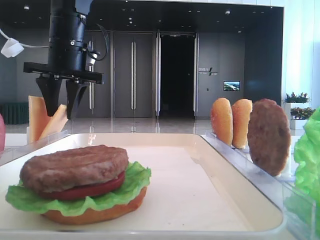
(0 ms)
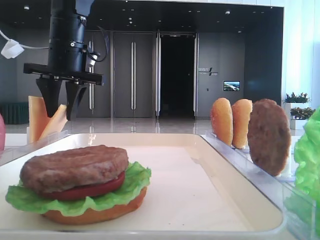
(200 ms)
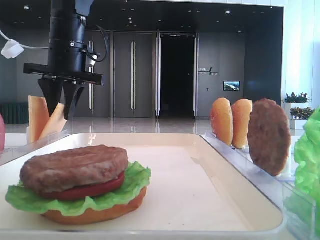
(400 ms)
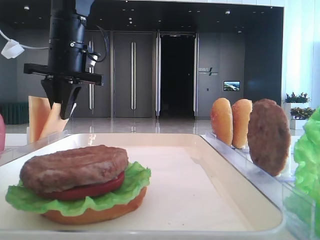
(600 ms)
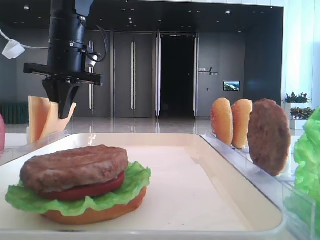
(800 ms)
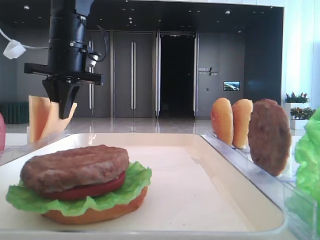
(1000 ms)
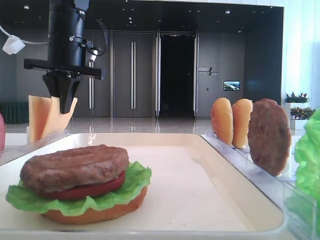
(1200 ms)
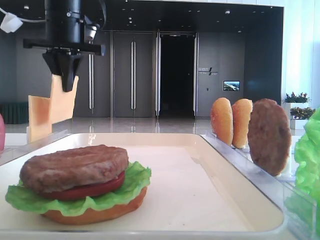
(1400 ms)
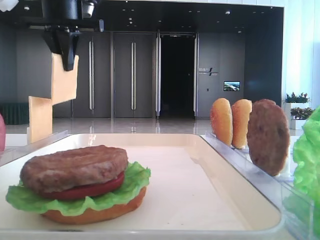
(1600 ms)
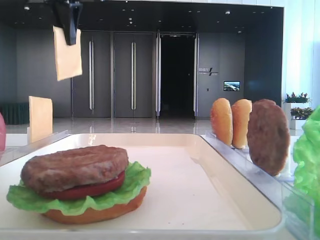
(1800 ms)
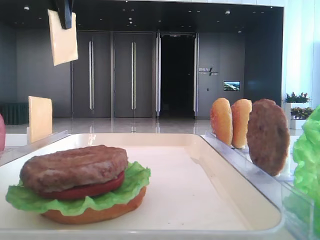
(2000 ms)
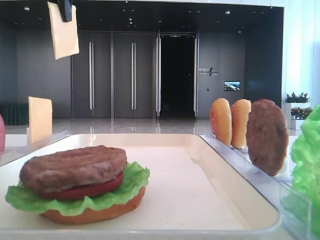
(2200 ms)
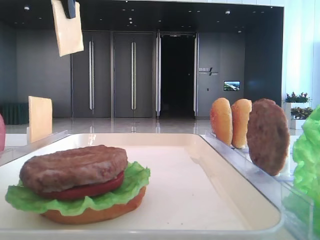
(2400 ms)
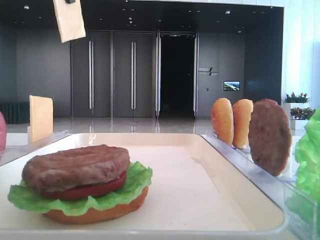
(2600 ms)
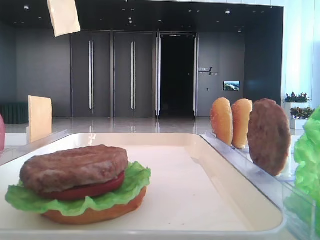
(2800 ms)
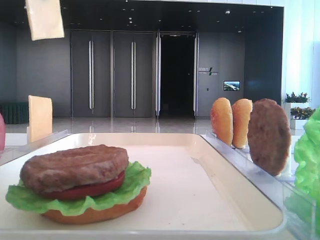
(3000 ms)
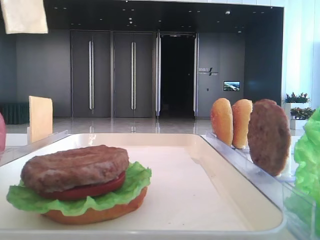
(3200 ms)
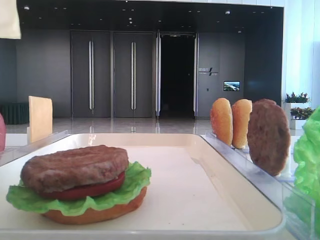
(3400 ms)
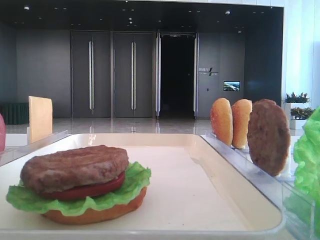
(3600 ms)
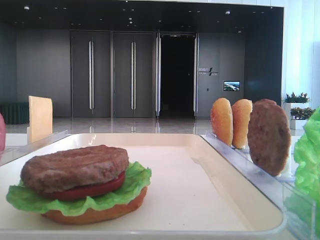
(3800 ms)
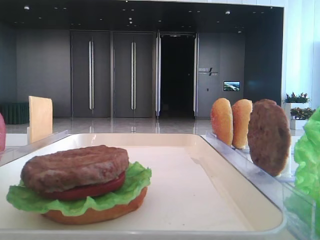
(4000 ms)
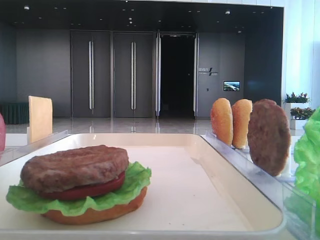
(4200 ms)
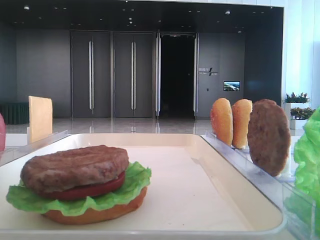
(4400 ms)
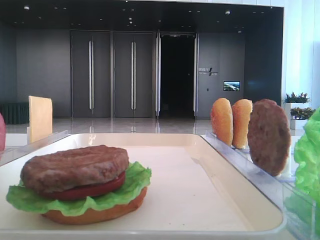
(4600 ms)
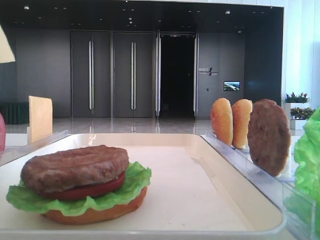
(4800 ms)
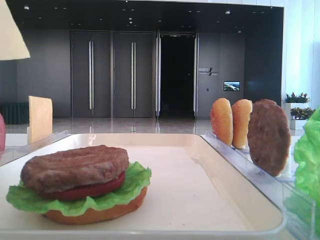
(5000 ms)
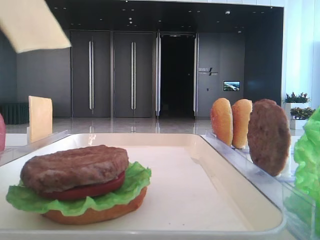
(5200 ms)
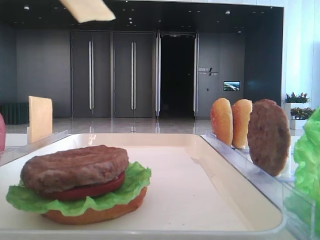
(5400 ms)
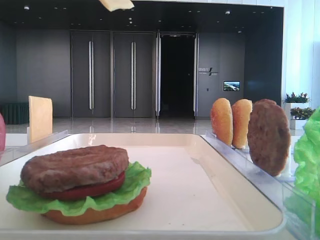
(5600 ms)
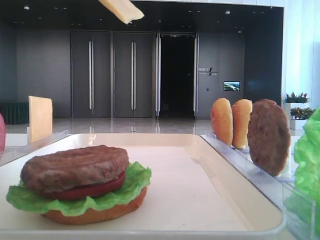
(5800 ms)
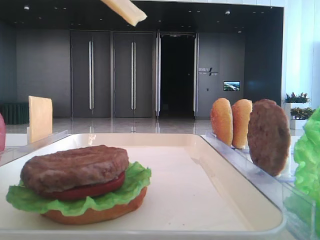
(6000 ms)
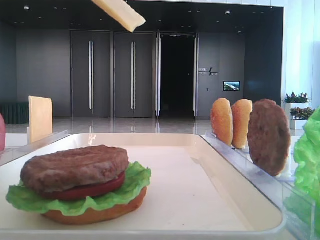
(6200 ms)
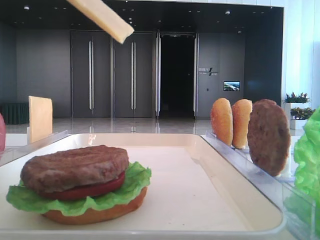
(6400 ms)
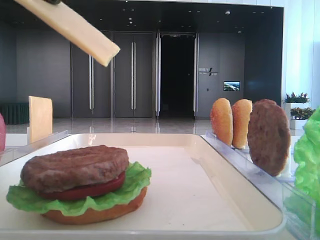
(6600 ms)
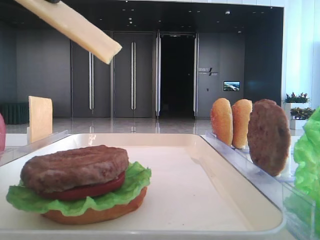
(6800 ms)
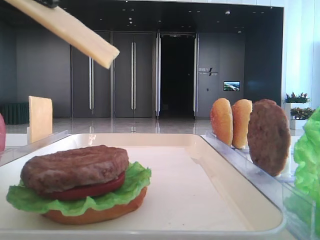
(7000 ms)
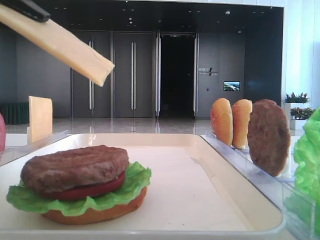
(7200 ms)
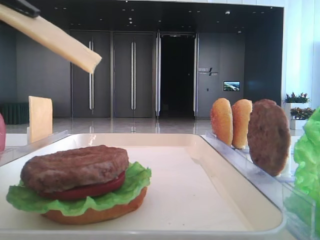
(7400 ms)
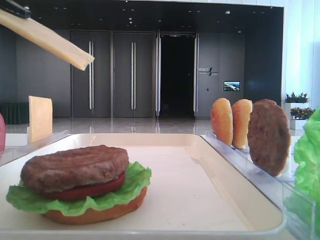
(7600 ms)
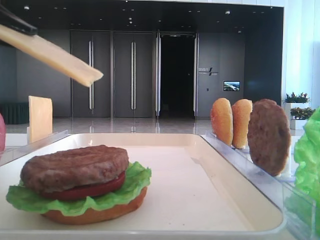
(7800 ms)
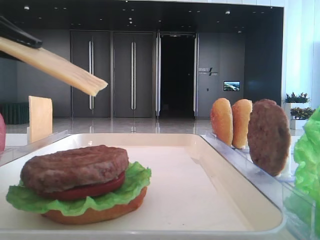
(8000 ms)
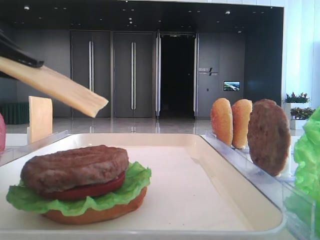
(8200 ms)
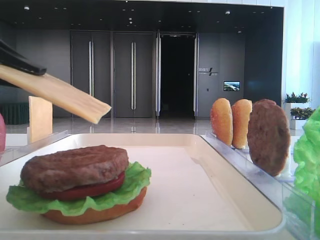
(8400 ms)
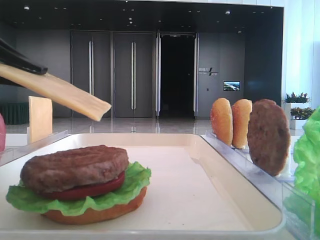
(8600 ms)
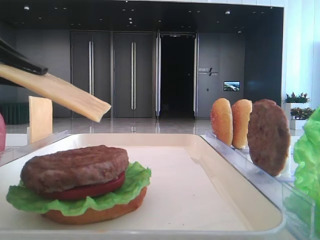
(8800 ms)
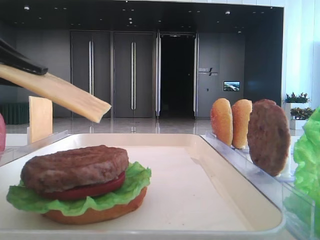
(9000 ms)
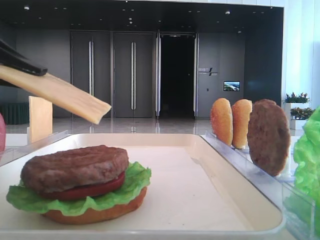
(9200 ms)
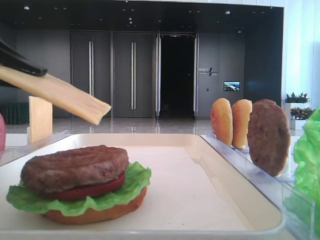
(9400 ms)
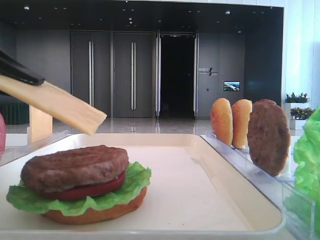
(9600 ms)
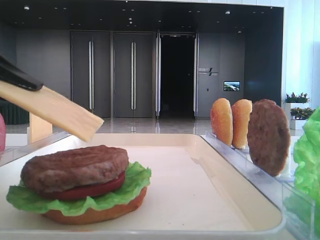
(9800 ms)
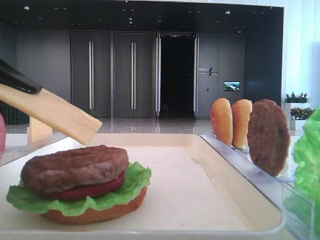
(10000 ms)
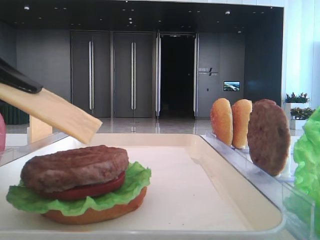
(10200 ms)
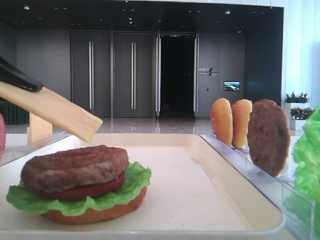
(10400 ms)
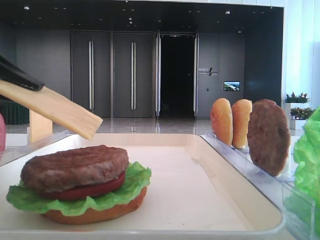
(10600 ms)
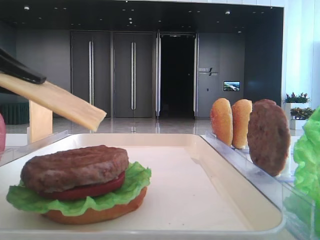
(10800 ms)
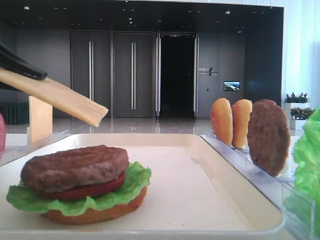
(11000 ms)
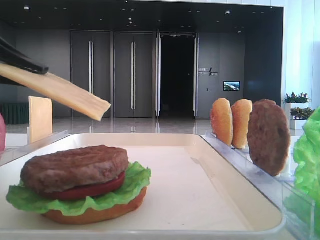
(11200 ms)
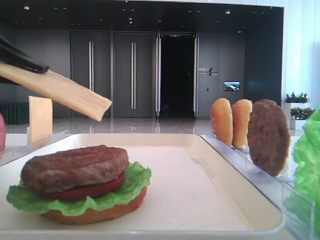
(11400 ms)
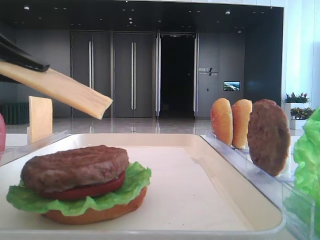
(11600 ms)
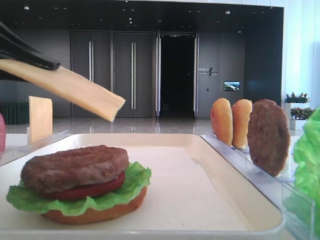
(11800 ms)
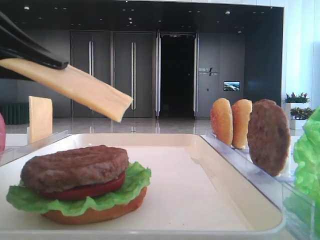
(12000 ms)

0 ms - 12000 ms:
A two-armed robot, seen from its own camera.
0 ms - 1600 ms: The left gripper goes some 10 cm upward, and closes its fingers.
1600 ms - 3000 ms: The left gripper is displaced upward and backward by approximately 15 cm.
3000 ms - 4400 ms: The left gripper heads backward and downward, covering about 20 cm.
4400 ms - 6000 ms: The left gripper shifts approximately 5 cm to the right.
6000 ms - 7600 ms: The left gripper is displaced downward and to the left by about 10 cm.
7600 ms - 9000 ms: The left gripper goes about 5 cm downward.
9000 ms - 10400 ms: Neither gripper changes place.
10400 ms - 12000 ms: The grippers move only a little.

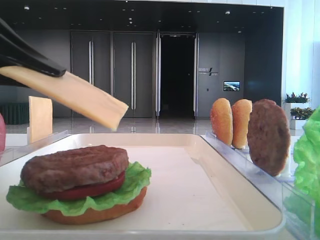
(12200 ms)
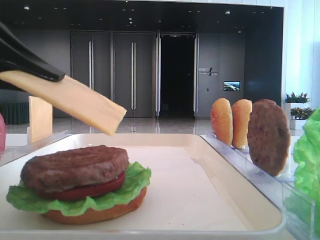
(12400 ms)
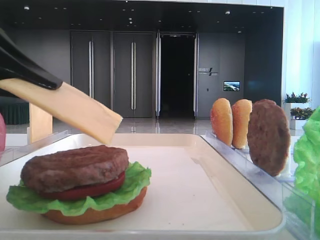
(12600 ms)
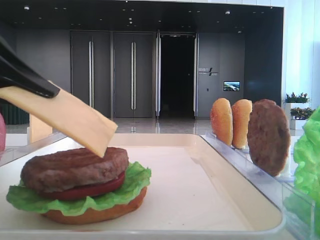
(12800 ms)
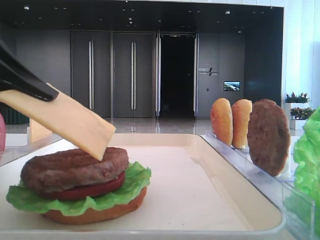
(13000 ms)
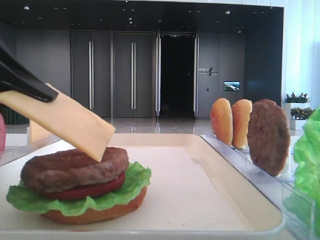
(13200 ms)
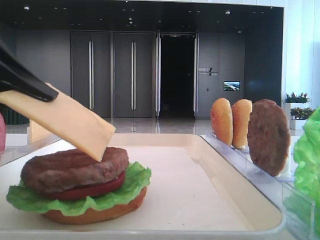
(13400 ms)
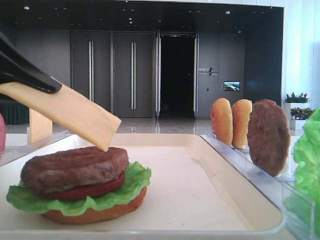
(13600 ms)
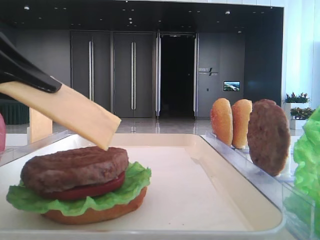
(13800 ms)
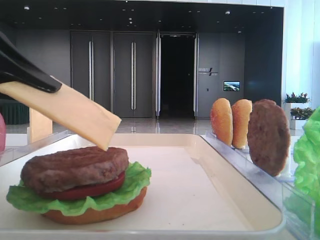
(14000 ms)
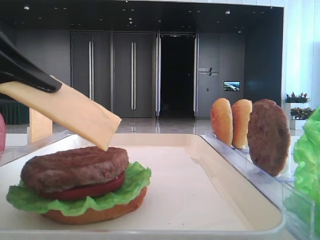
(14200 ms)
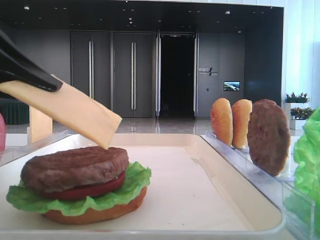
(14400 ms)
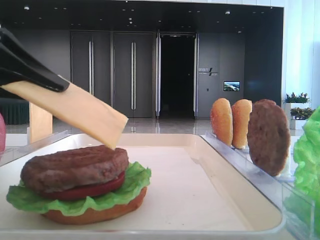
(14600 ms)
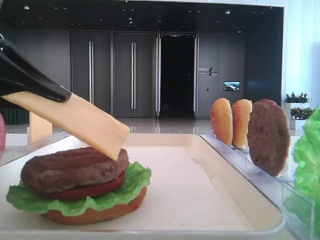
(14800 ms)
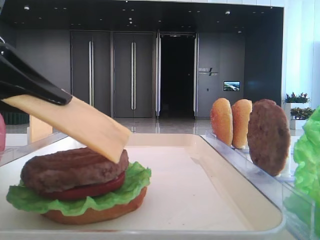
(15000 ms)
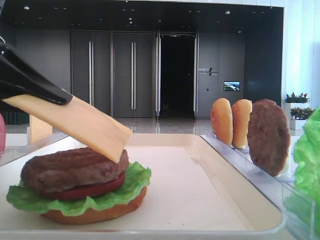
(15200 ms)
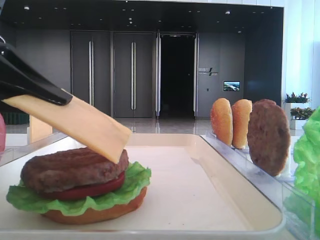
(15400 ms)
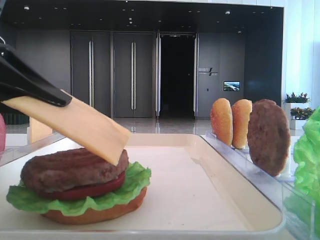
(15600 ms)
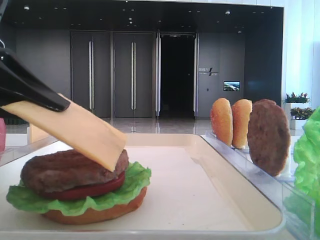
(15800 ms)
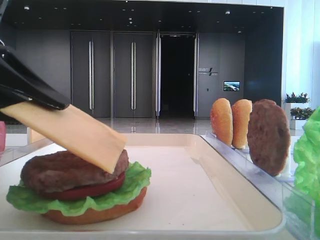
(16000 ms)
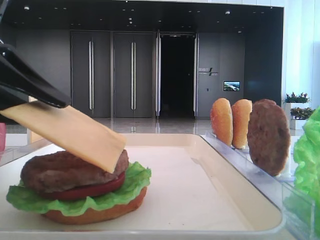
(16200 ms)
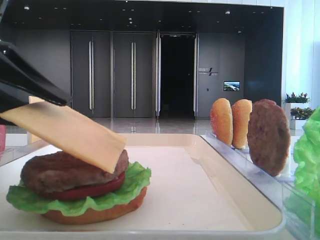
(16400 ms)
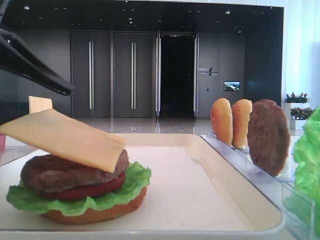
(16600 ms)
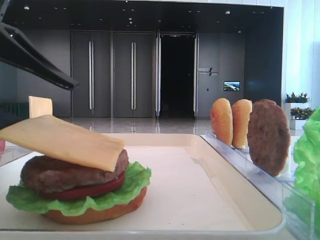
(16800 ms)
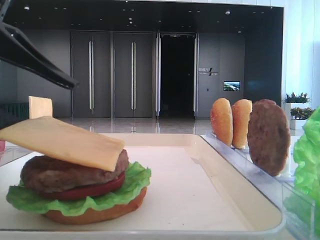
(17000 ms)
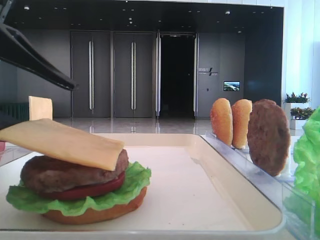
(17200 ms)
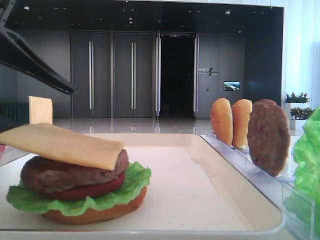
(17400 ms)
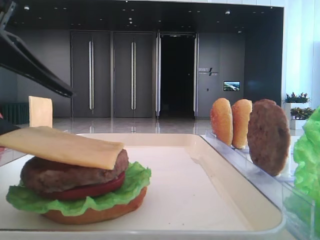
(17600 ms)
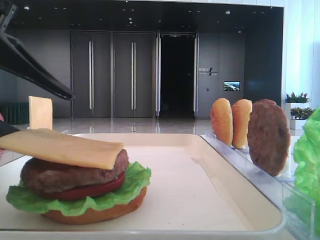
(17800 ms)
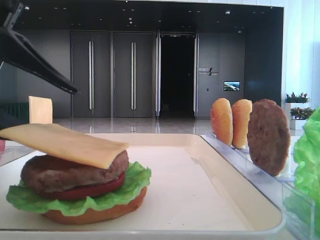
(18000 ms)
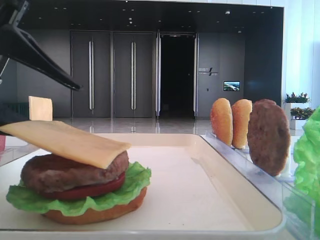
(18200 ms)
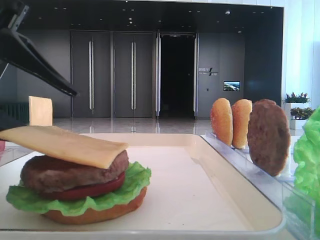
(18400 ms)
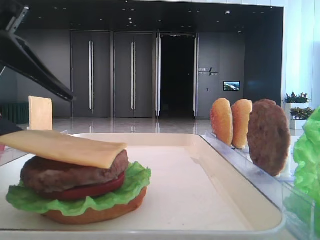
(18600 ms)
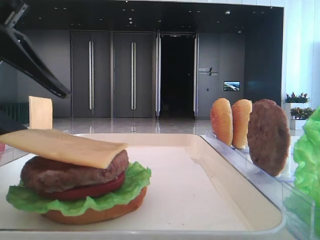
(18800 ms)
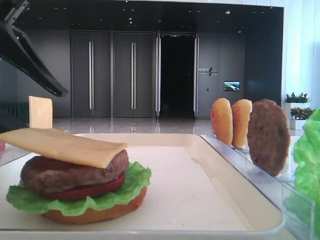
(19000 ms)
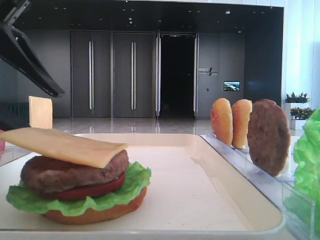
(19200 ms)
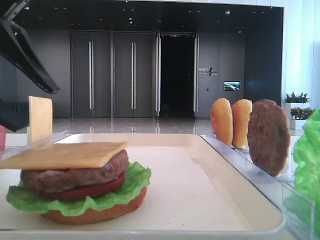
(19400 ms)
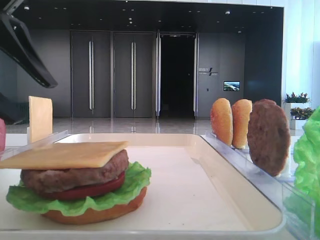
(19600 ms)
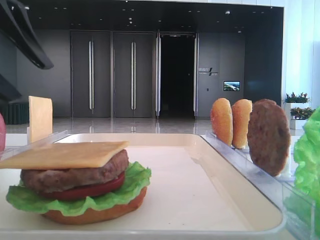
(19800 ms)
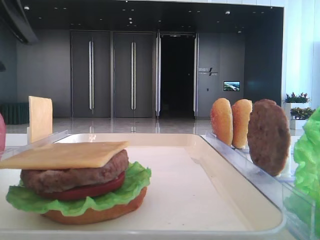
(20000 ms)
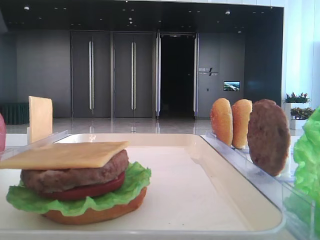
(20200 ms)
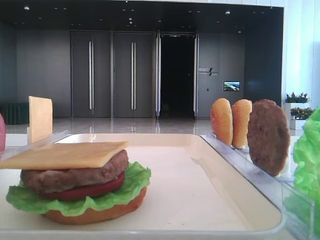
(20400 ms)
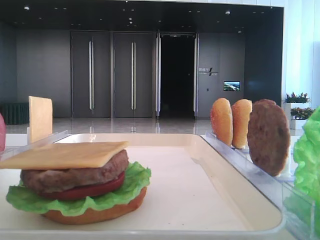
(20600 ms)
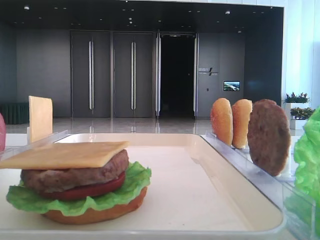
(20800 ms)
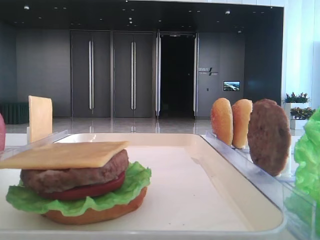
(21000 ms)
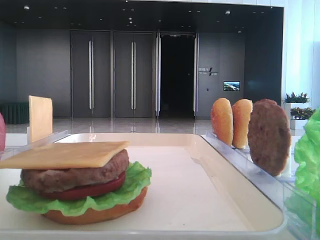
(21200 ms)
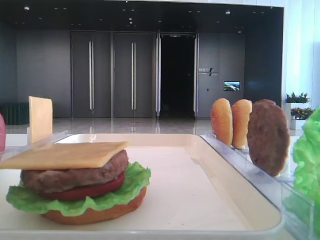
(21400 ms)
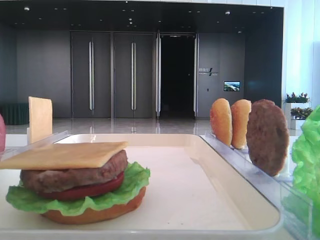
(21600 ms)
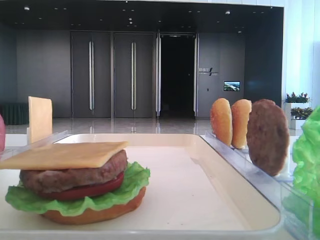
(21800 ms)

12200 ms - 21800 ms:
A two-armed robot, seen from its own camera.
Step, 12200 ms - 19200 ms: Place the cheese slice on the patty with the left hand.
12200 ms - 13800 ms: There are only small adjustments of the grippers.
13800 ms - 15400 ms: Neither gripper changes place.
15400 ms - 17000 ms: The left gripper opens up.
17000 ms - 18600 ms: There are only small adjustments of the grippers.
18600 ms - 20200 ms: The left gripper travels upward by roughly 10 cm.

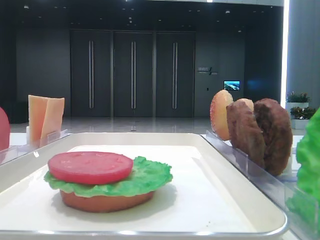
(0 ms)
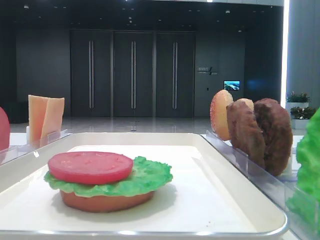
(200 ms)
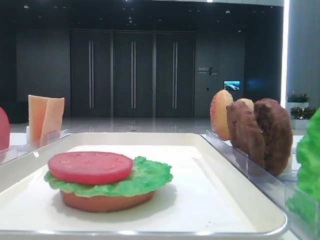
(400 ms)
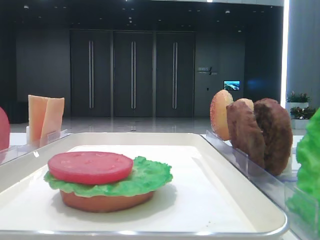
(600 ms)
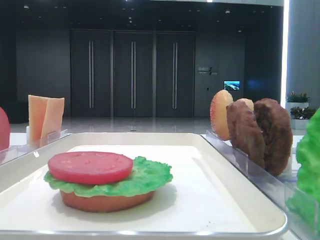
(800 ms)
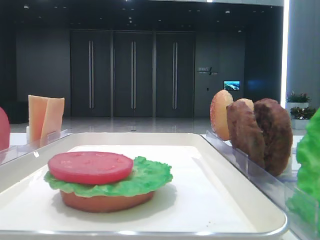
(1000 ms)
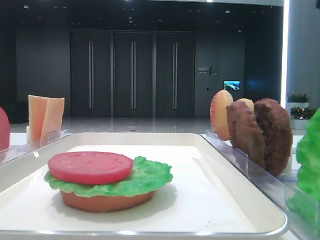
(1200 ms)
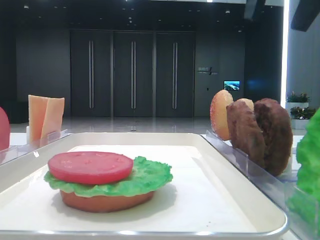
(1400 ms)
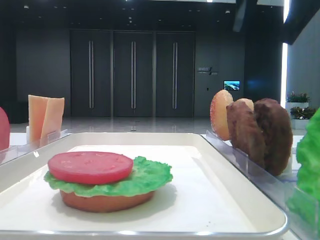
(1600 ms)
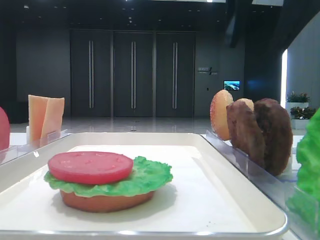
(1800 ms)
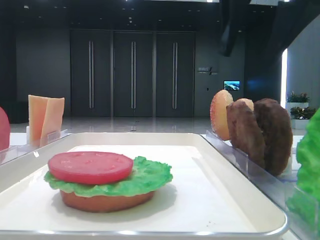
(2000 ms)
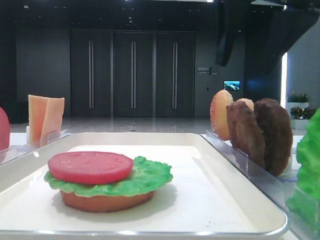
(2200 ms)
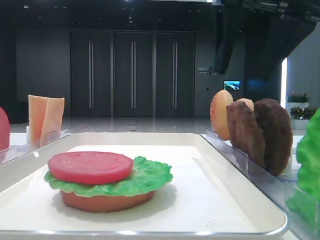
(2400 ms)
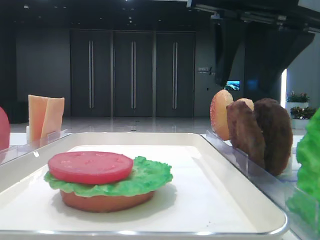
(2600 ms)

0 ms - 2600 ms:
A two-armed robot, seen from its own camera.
1200 ms - 2600 ms: The right gripper heads downward, to the left and forward, covering roughly 10 cm.
